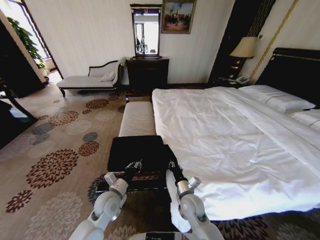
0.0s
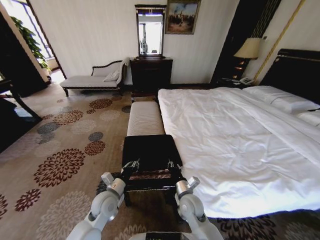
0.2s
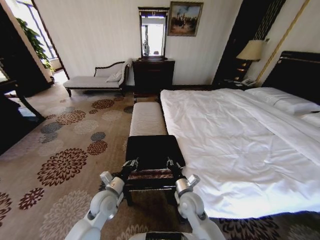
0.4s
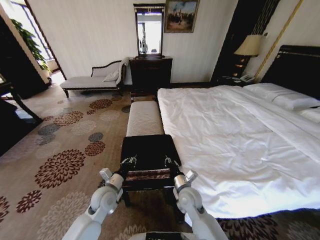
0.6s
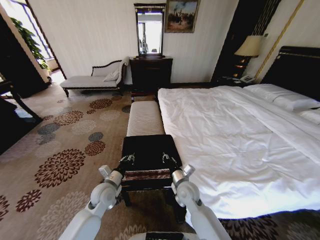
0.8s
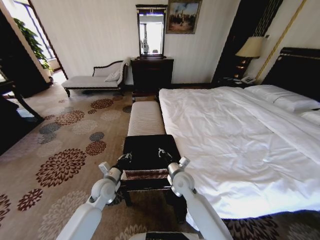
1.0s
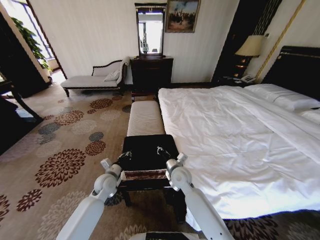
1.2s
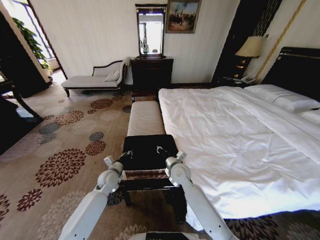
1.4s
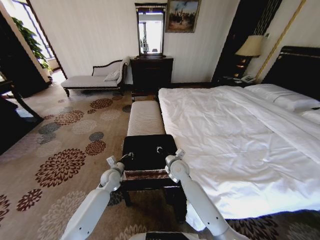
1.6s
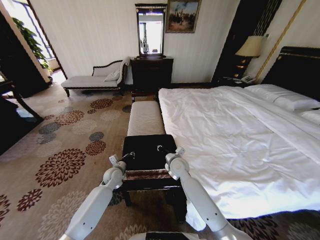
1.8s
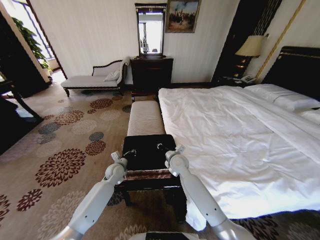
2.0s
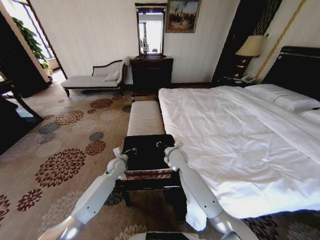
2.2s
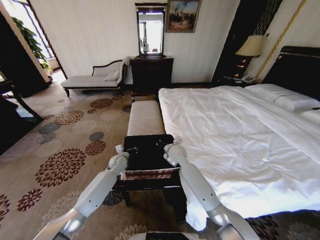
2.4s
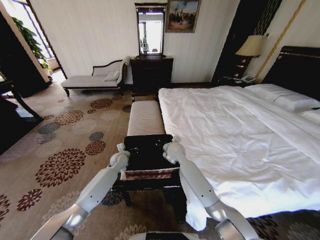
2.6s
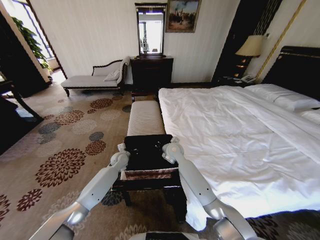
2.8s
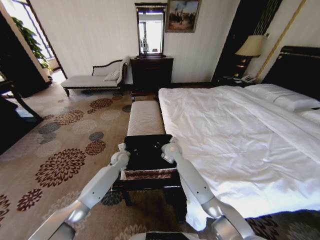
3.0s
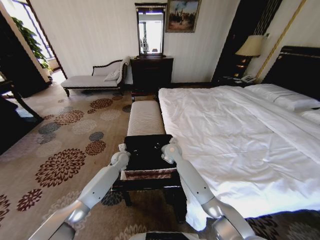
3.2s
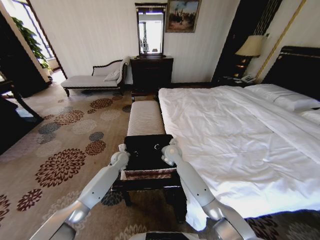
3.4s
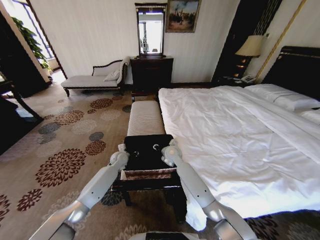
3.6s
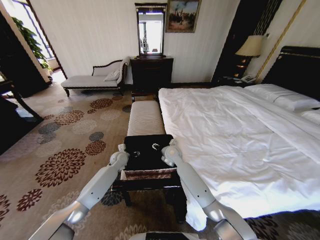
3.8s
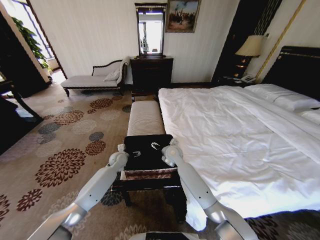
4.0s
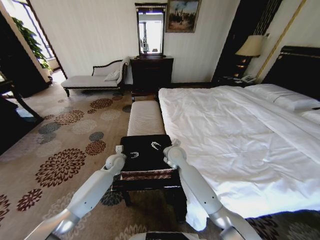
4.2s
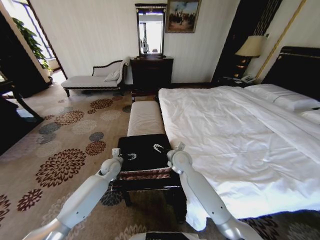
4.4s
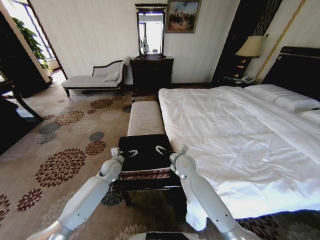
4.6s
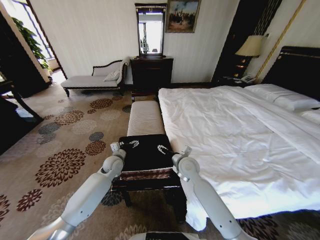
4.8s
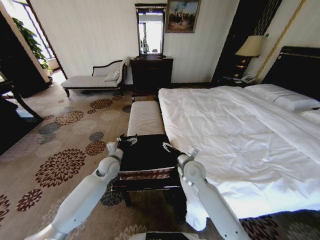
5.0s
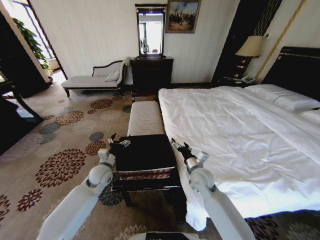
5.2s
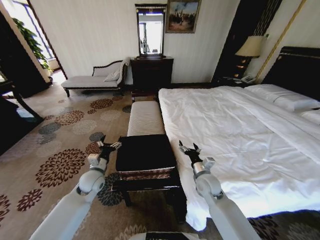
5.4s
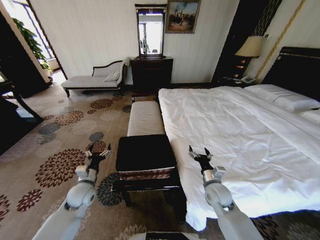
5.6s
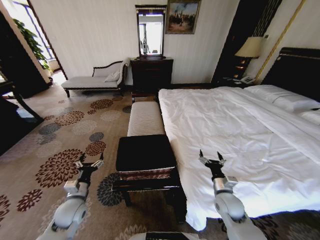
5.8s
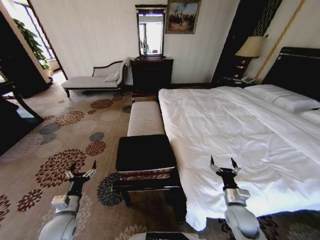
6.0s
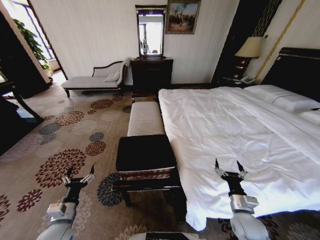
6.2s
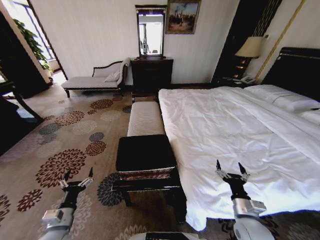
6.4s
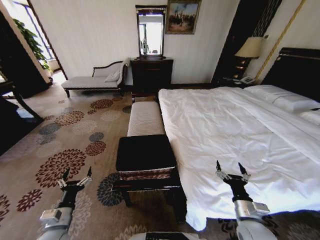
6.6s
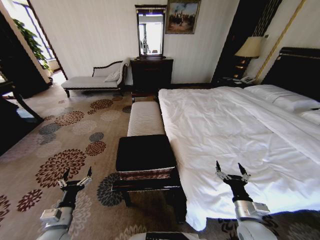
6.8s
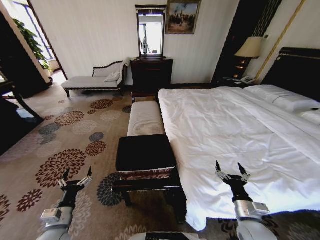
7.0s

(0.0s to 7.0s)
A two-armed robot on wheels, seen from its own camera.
Task of the whole recording: Fold the clothes on the bed and place them into the basket.
0.0s - 1.4s: The right gripper is displaced forward and upward by about 15 cm, while the left gripper goes some 10 cm forward.
1.4s - 2.8s: Both grippers travel together forward, approximately 10 cm.
2.8s - 4.2s: The right gripper opens. The left gripper opens.
4.2s - 5.6s: The right gripper is displaced backward and to the right by about 20 cm. Meanwhile the left gripper shifts approximately 20 cm backward and to the left.
5.6s - 7.0s: The left gripper travels backward by approximately 15 cm. The right gripper heads backward and to the right, covering some 15 cm.
